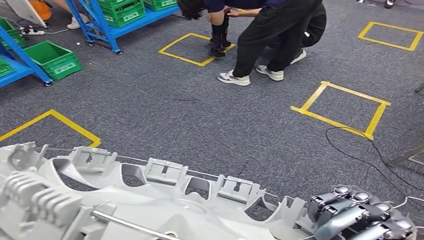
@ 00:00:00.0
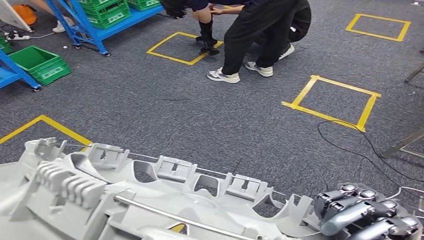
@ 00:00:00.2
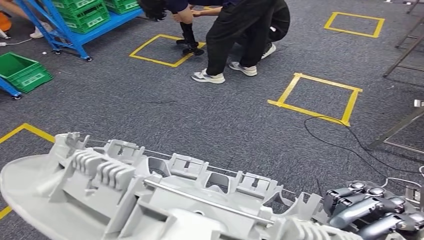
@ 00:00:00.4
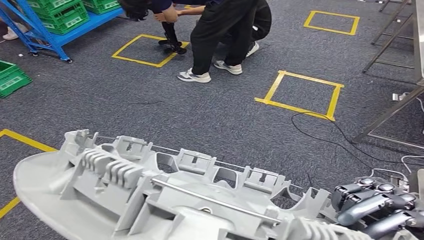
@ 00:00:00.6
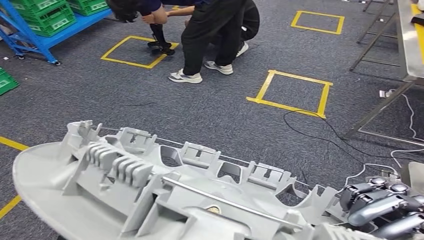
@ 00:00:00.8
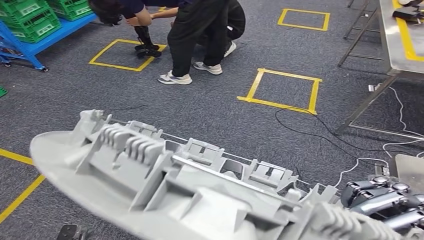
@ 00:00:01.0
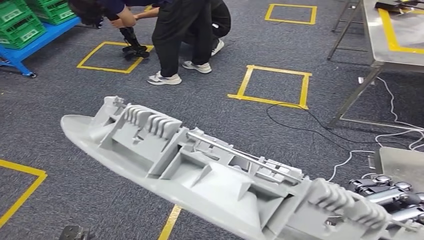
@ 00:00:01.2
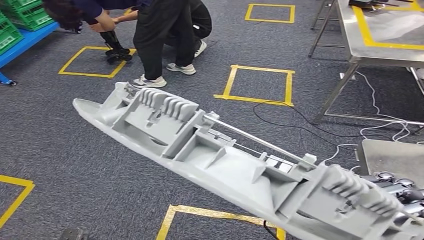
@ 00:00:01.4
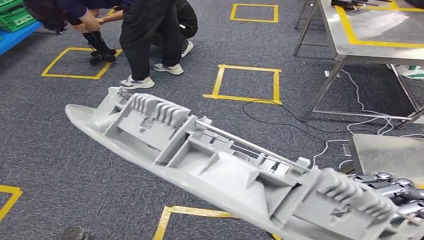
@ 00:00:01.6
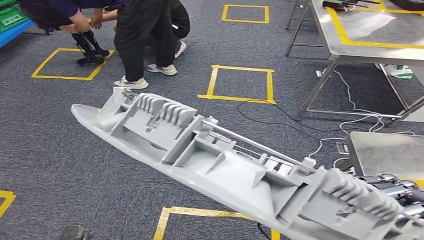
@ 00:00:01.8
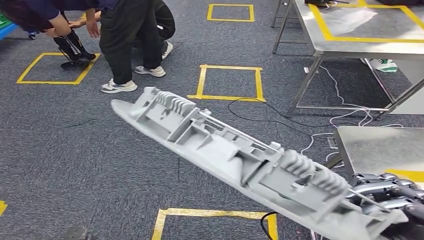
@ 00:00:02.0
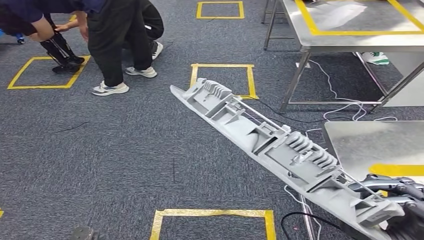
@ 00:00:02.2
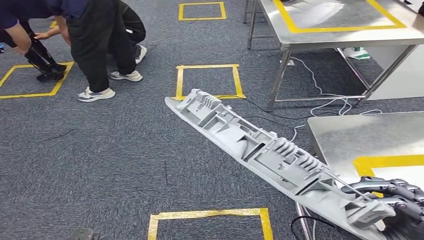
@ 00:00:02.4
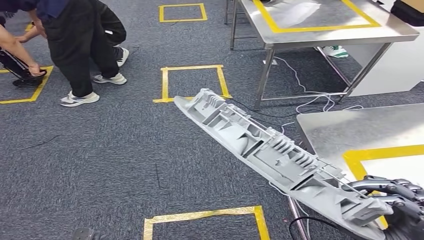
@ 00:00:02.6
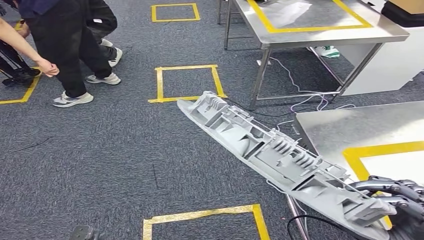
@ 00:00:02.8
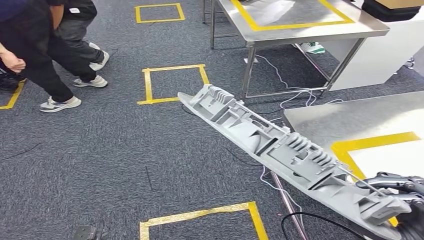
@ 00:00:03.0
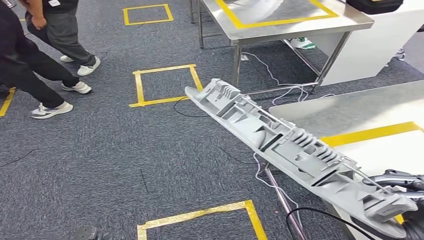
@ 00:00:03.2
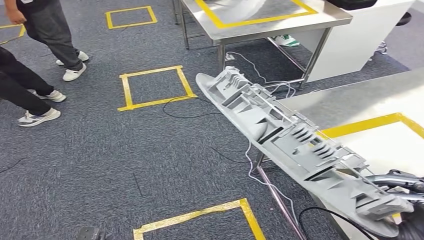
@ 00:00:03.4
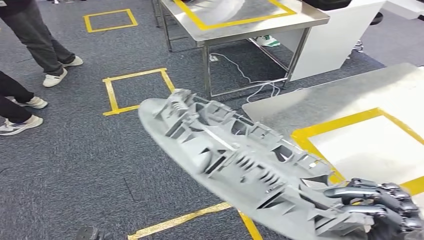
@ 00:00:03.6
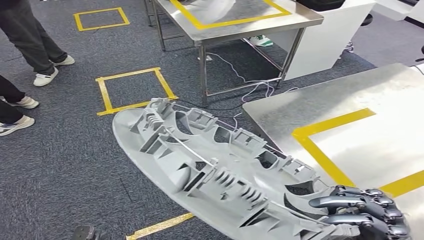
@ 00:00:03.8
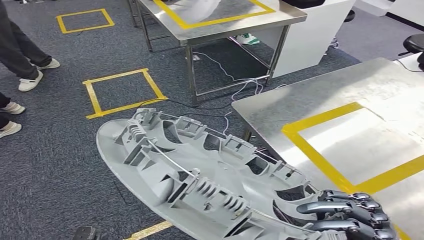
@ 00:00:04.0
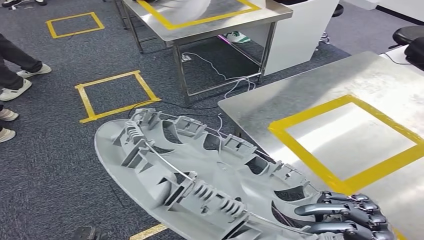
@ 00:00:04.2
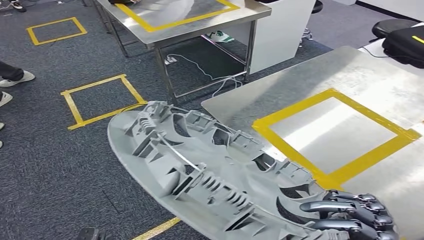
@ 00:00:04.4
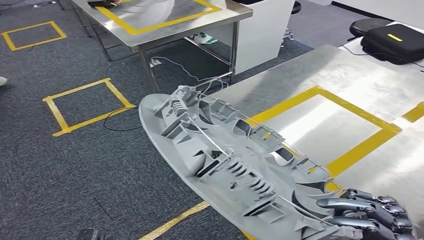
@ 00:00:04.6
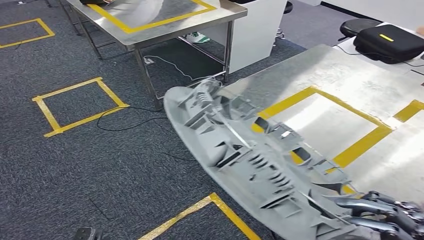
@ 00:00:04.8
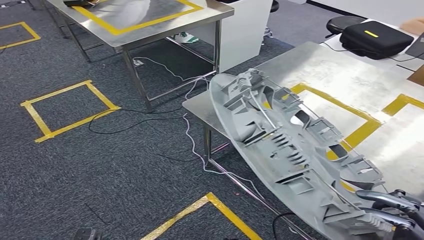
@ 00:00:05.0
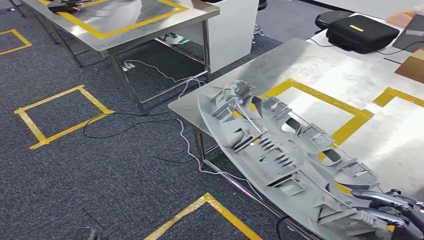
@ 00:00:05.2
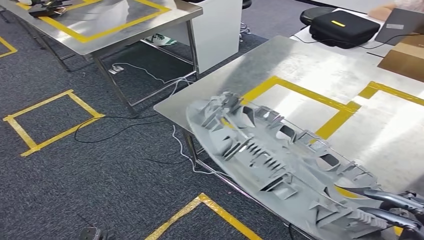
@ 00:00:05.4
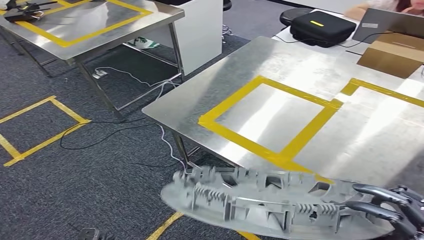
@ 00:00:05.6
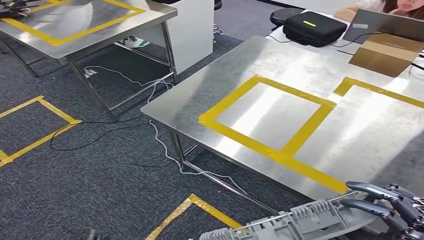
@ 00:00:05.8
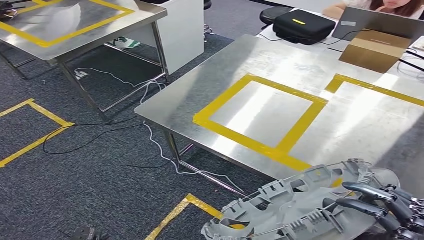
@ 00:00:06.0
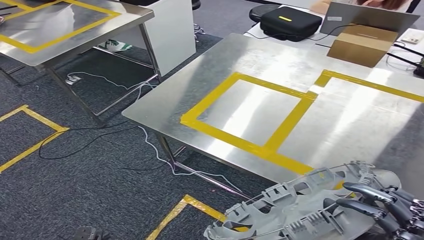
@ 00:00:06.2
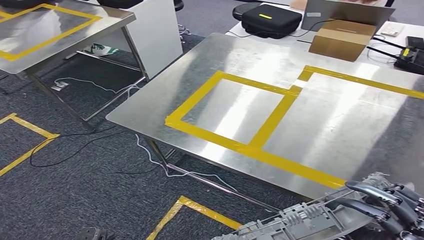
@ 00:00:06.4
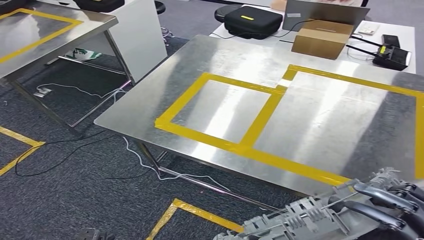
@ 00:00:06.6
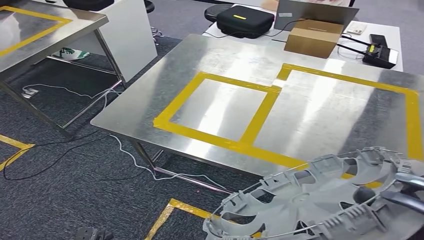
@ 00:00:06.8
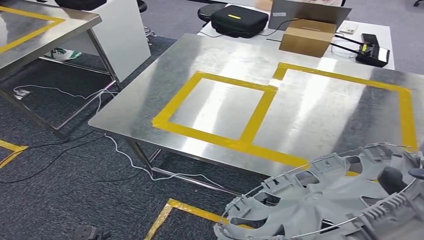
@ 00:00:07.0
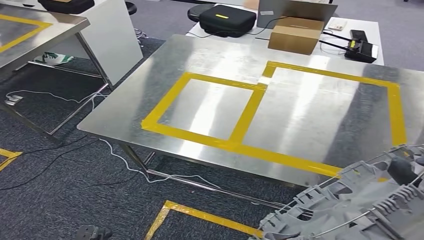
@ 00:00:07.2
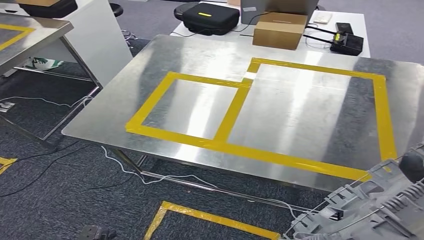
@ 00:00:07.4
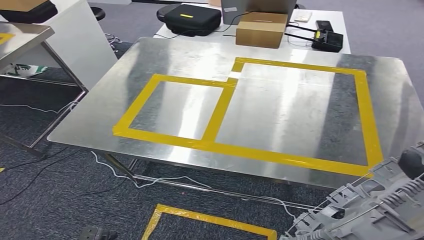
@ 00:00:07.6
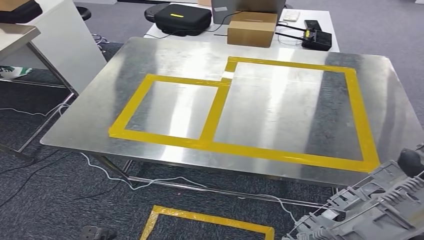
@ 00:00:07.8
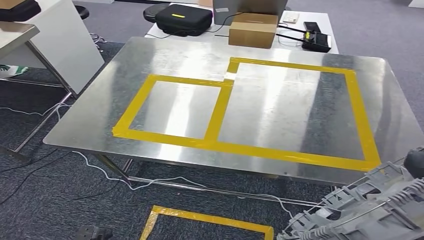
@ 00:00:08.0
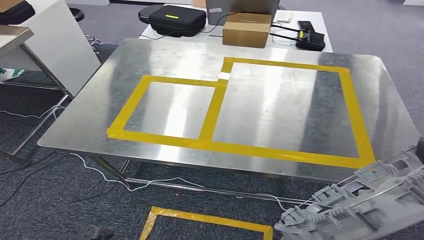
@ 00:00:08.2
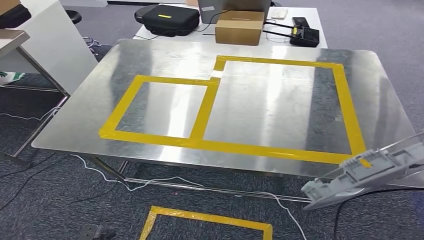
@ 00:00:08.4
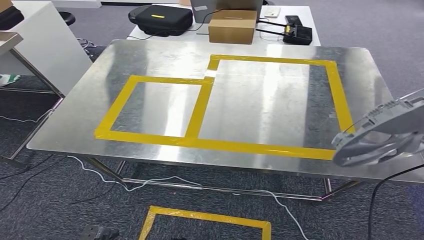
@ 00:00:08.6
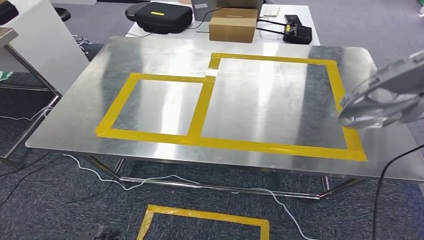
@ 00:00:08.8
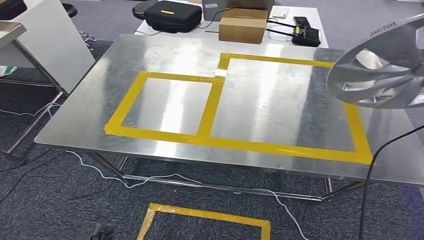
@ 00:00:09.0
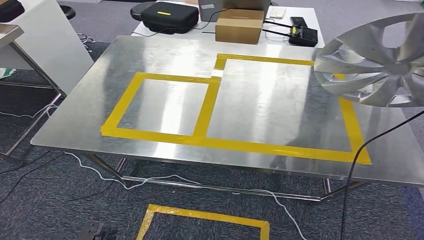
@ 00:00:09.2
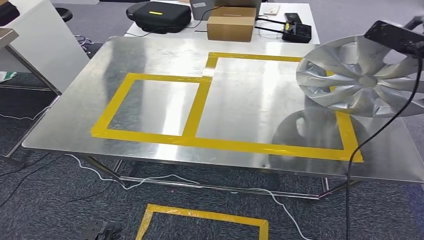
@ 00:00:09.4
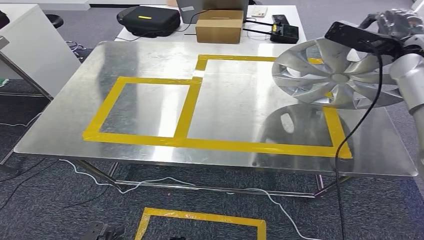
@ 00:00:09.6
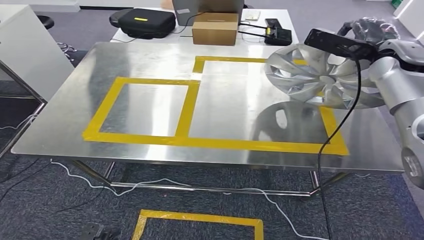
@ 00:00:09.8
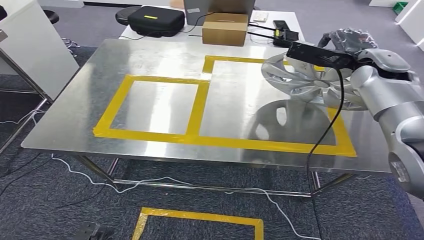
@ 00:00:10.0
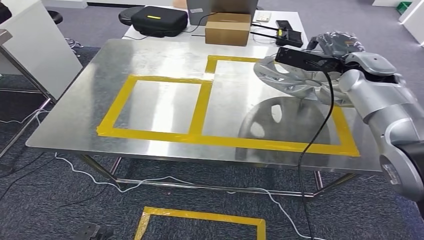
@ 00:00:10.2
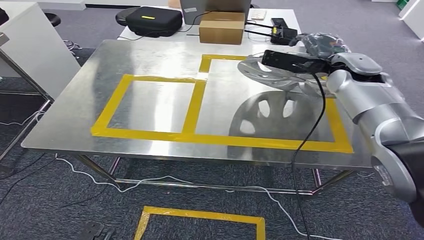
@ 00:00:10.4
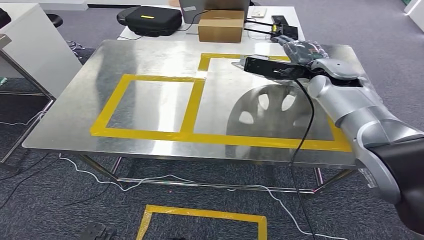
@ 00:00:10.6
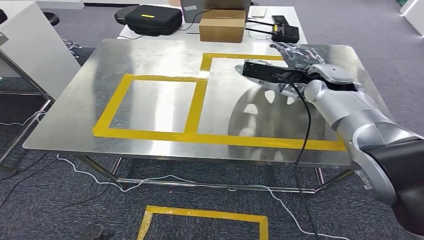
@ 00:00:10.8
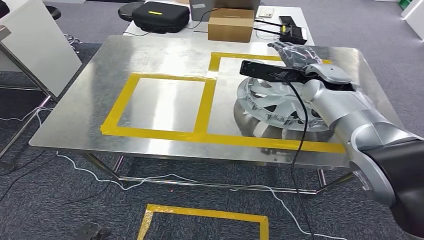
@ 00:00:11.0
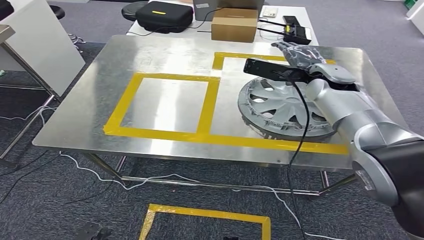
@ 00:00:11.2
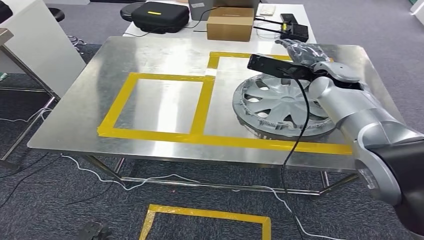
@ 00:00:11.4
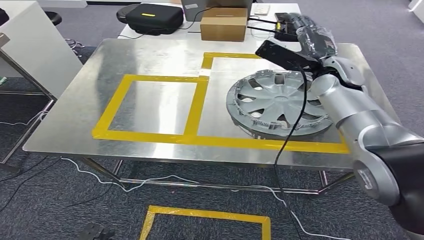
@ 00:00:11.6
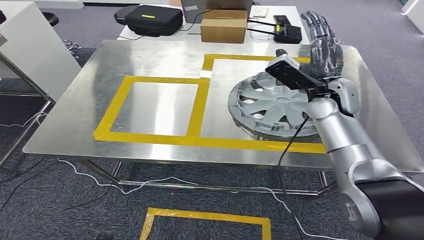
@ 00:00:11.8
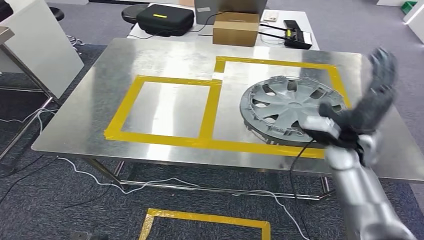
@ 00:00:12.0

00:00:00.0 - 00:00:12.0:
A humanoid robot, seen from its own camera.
Step, 00:00:00.0 - 00:00:07.4: Move the small component to the workbench.

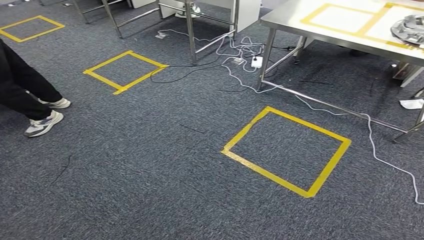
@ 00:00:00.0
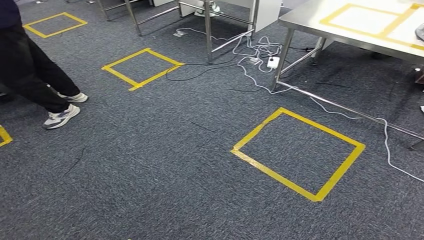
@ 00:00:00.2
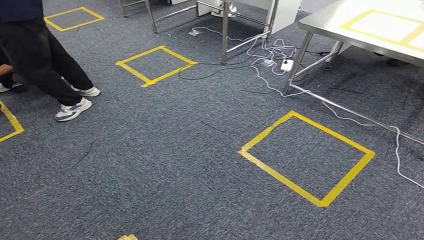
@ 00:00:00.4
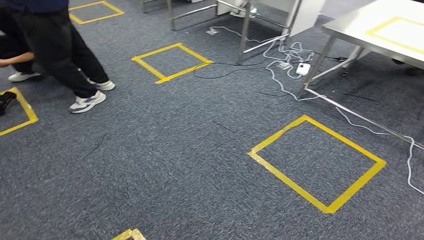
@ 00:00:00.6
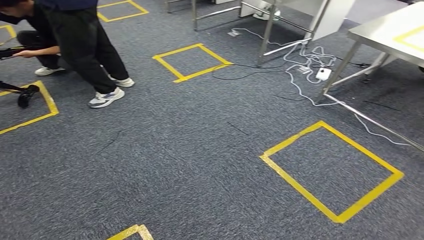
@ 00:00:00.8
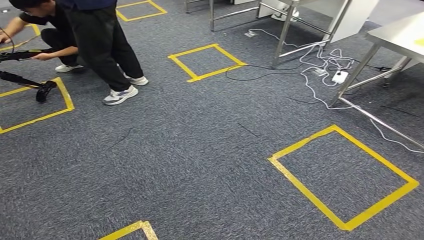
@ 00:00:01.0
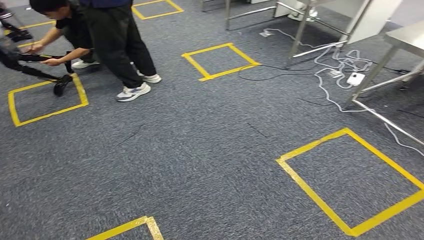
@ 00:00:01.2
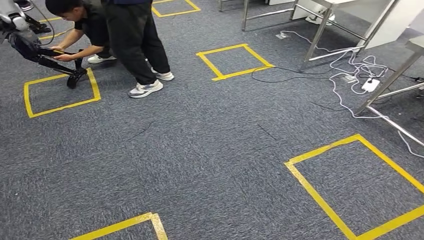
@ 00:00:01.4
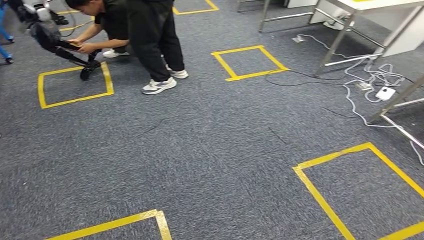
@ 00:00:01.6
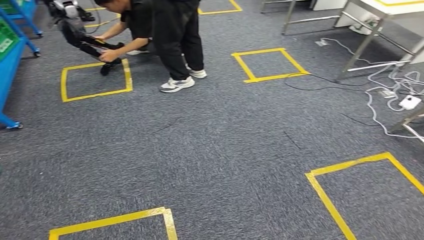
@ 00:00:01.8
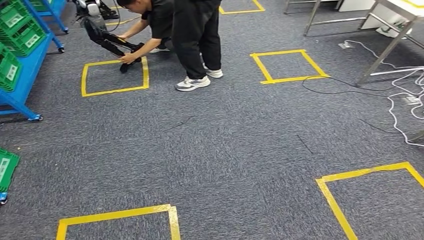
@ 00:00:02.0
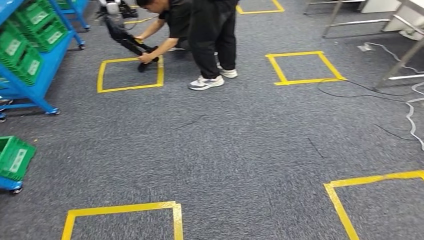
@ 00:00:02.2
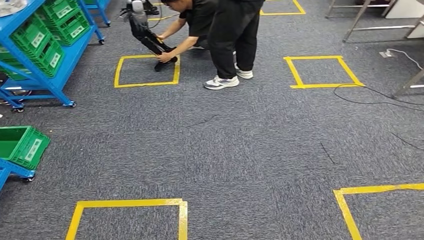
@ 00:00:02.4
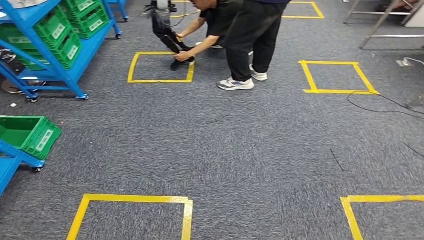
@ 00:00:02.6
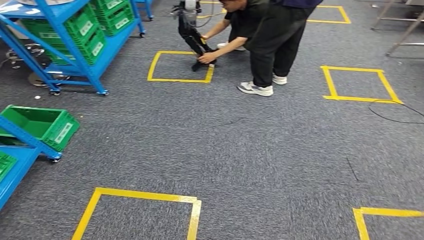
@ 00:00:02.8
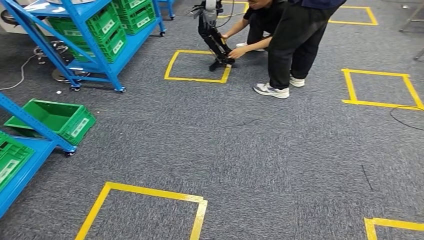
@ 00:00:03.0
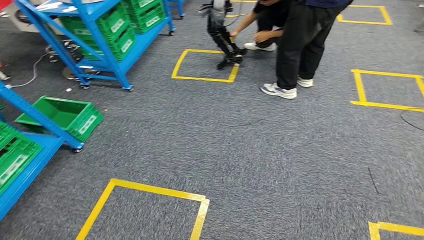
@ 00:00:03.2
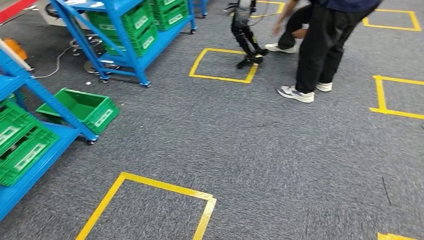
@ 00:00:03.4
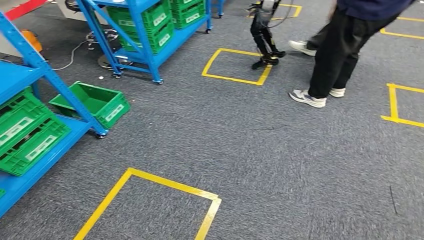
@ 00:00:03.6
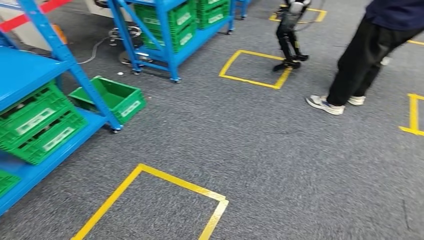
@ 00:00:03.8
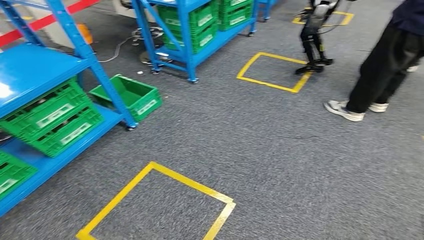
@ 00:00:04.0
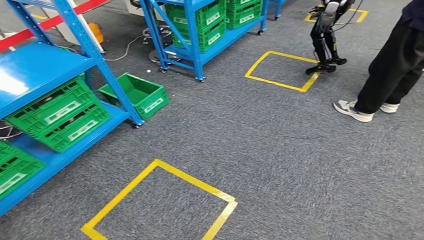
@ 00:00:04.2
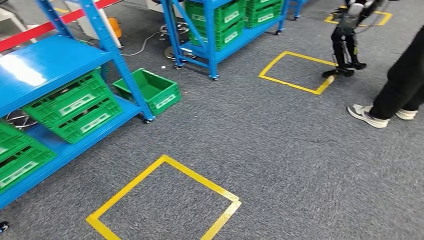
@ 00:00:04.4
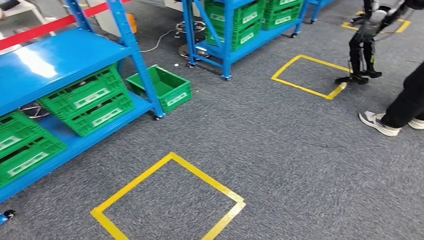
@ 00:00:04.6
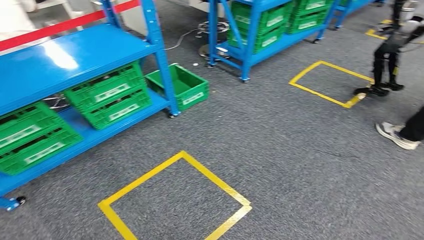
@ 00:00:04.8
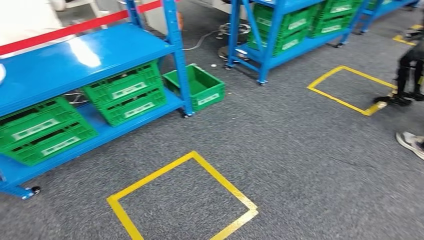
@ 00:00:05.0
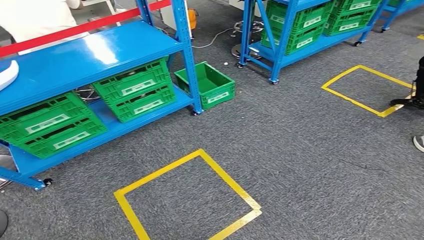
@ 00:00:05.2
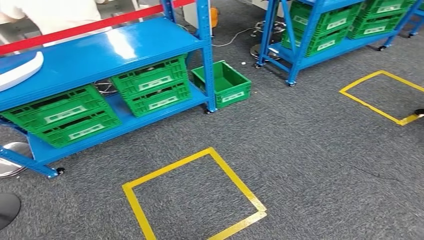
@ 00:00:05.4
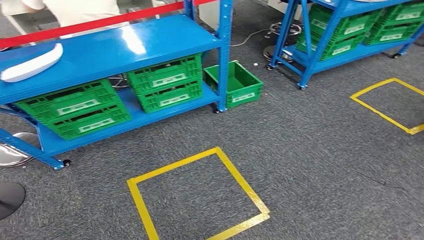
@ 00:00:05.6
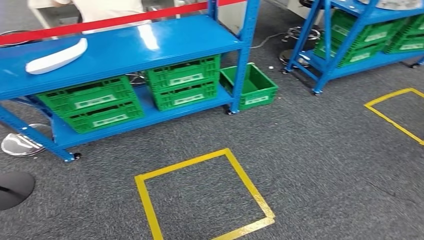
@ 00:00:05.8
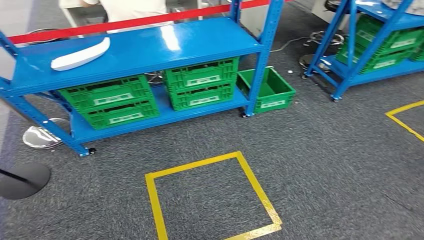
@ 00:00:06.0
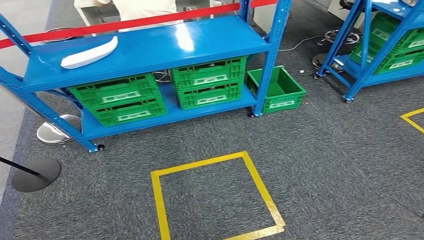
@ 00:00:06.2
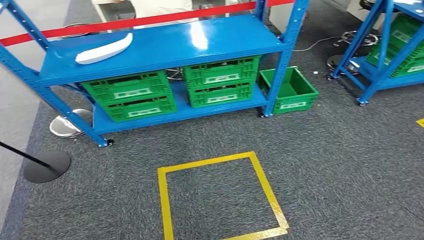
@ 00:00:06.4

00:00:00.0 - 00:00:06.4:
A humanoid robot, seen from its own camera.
Step, 00:00:00.0 - 00:00:06.2: Return to the initial position at the workbench.
